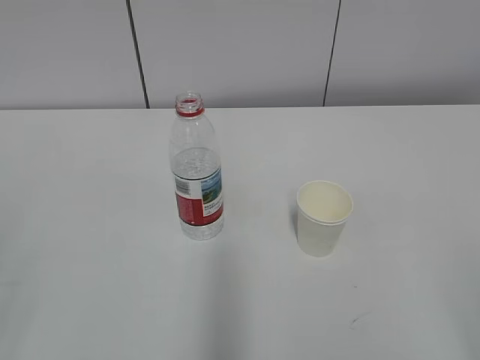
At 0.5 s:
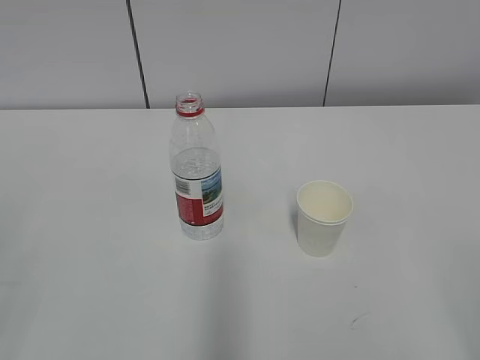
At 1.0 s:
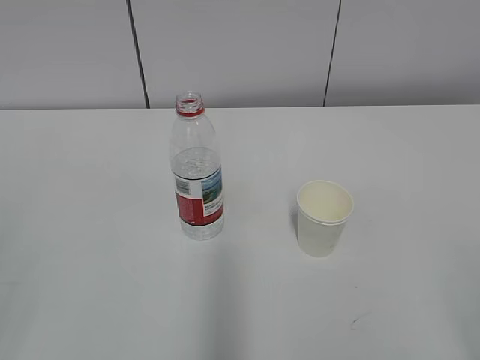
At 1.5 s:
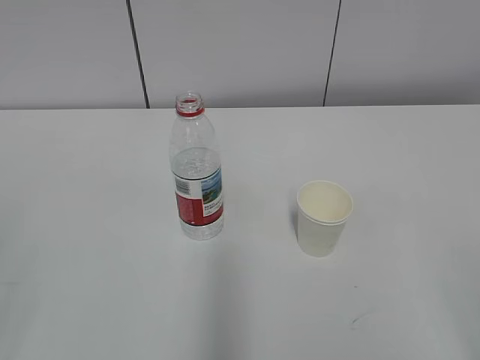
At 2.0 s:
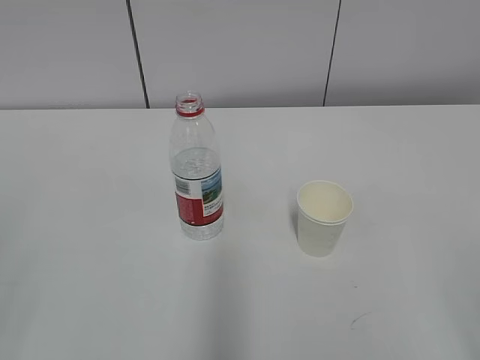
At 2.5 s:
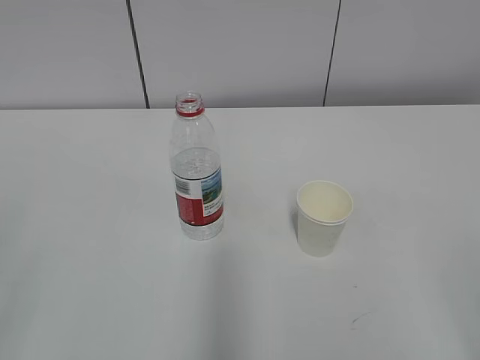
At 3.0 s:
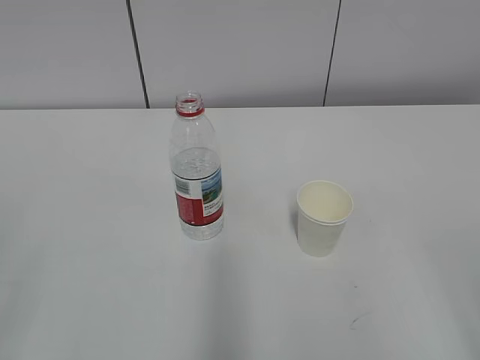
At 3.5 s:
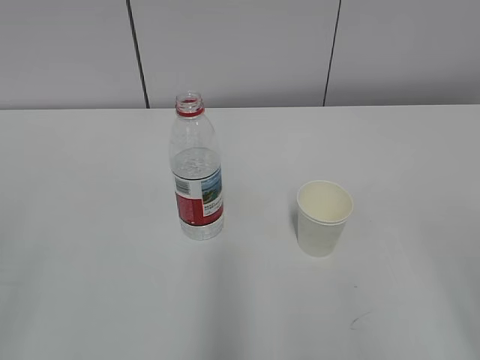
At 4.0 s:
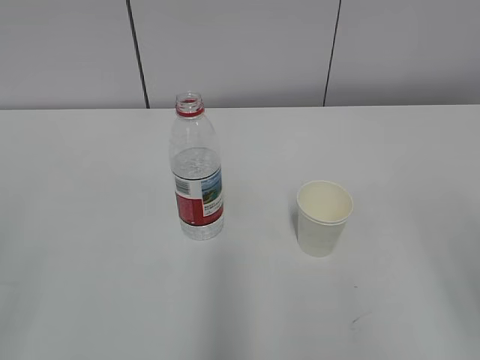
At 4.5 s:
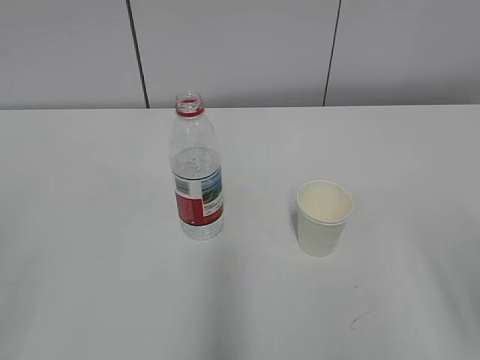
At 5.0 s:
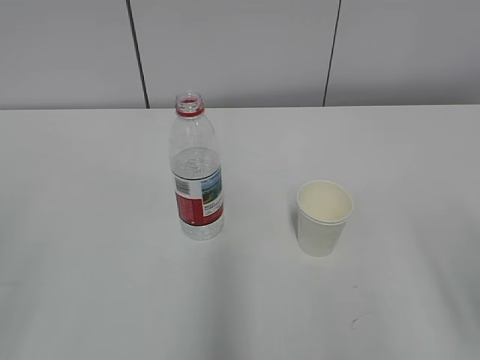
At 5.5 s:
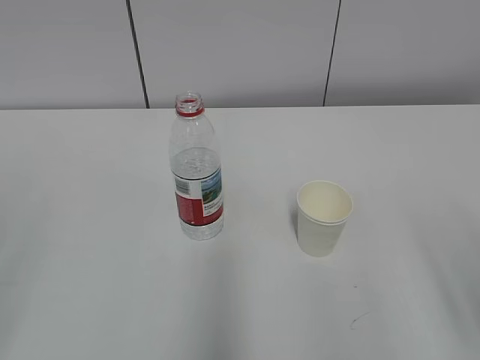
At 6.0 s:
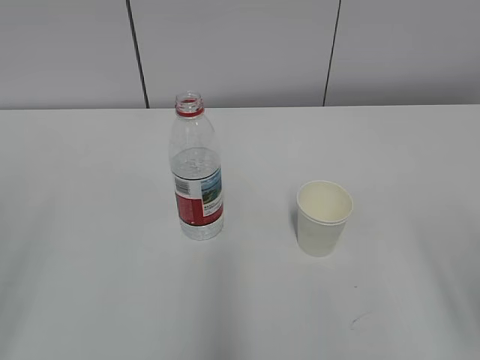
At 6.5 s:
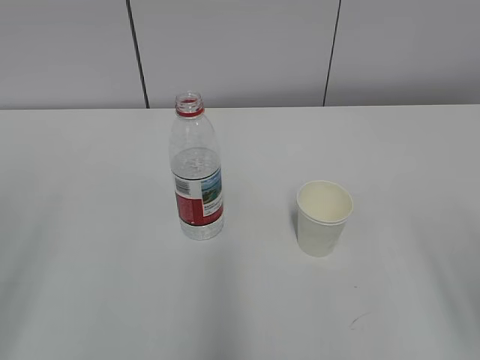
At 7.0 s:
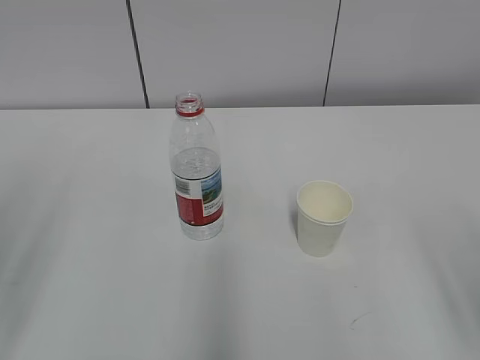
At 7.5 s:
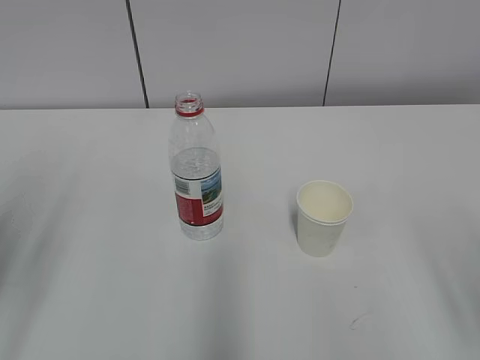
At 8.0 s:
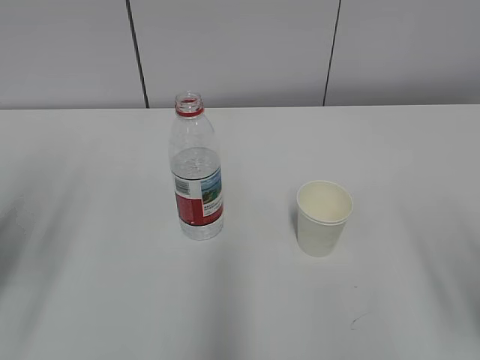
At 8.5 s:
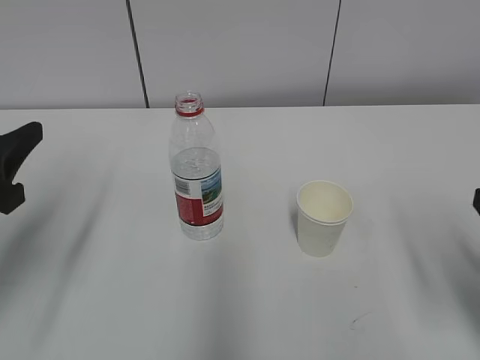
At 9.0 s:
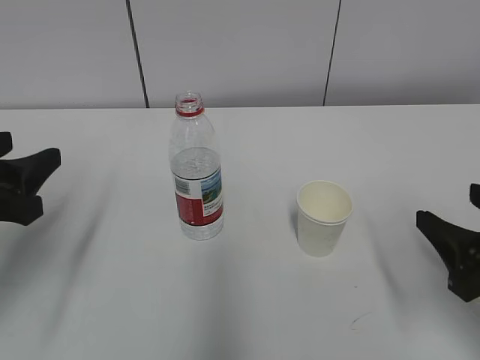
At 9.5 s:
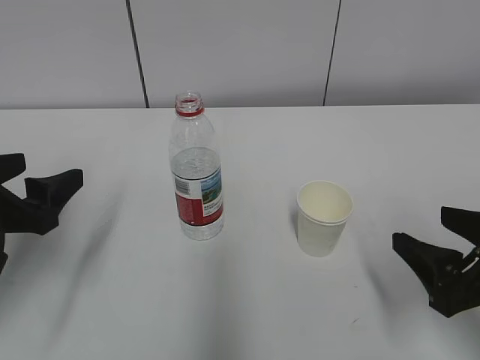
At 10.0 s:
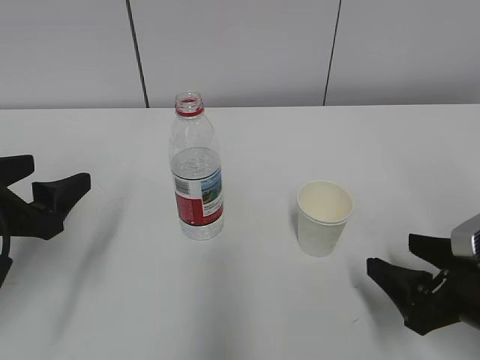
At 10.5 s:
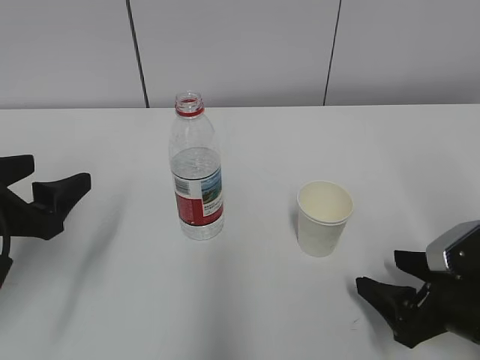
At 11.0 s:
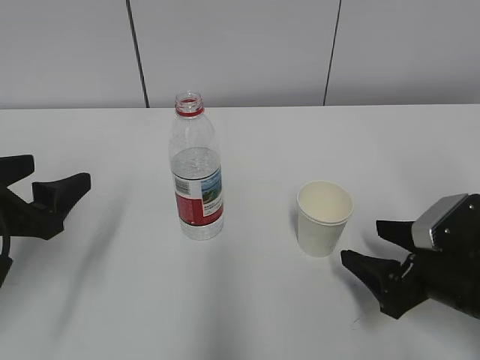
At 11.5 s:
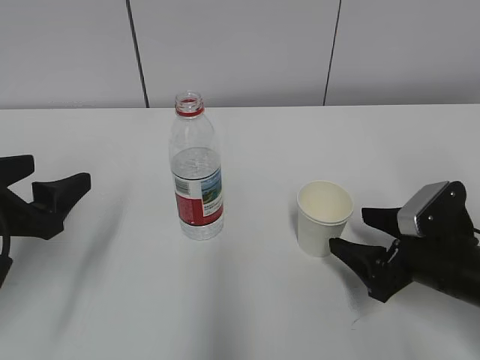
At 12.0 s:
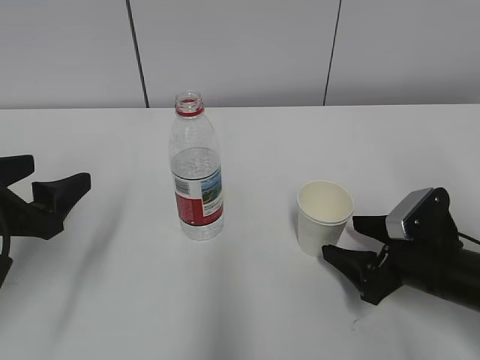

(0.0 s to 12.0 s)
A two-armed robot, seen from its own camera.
6.0 s - 8.0 s: The left gripper moves forward, about 15 cm.
8.0 s - 10.0 s: The left gripper heads downward, covering about 5 cm, and opens up. Meanwhile the right gripper goes approximately 15 cm downward and forward.
10.0 s - 12.0 s: The right gripper is displaced forward by approximately 5 cm.

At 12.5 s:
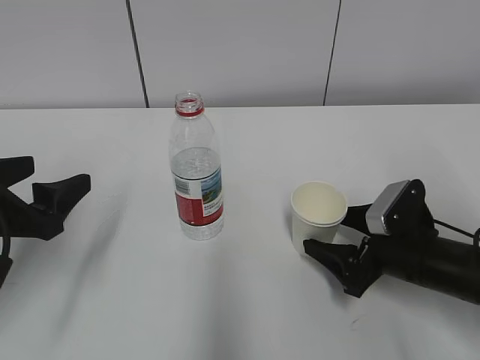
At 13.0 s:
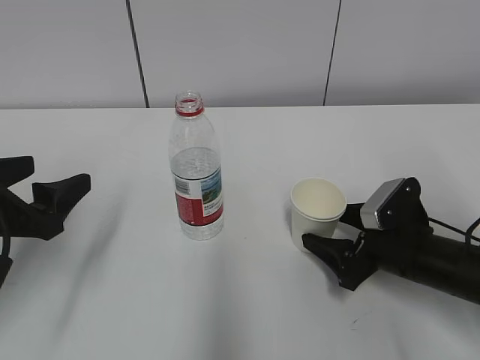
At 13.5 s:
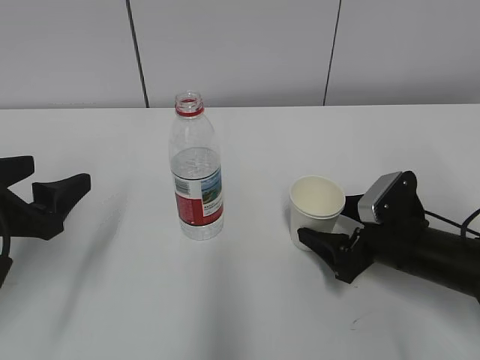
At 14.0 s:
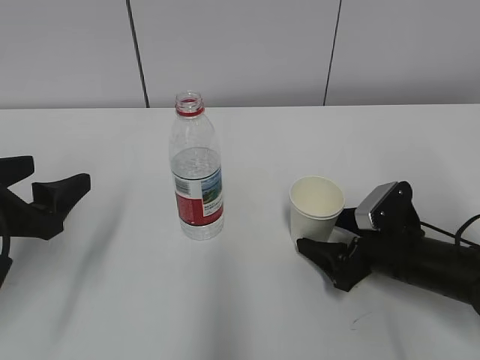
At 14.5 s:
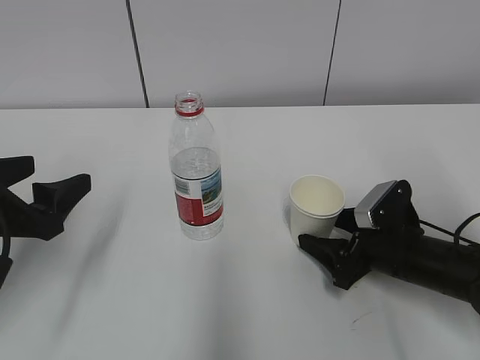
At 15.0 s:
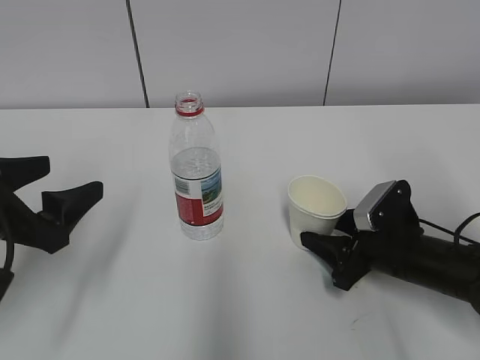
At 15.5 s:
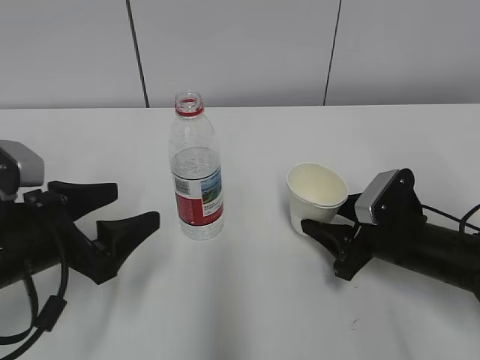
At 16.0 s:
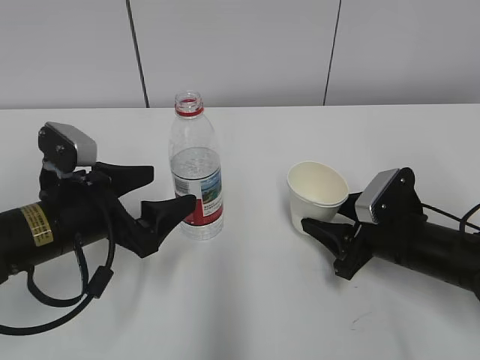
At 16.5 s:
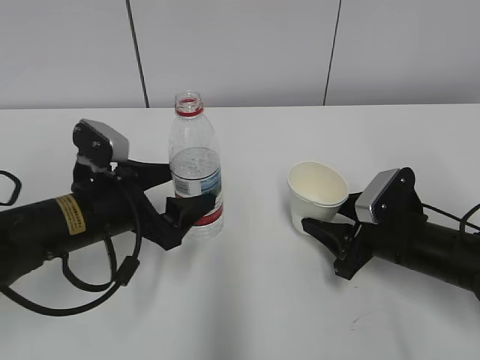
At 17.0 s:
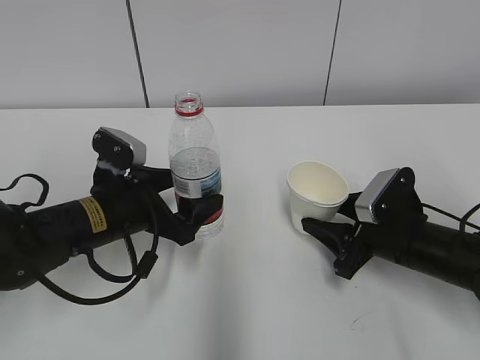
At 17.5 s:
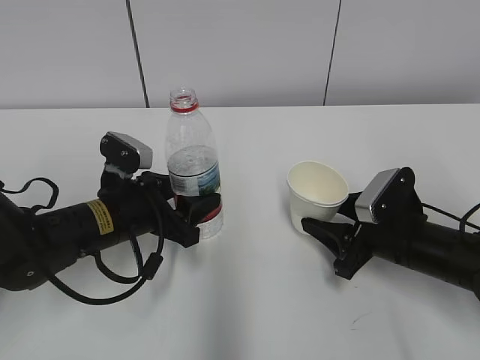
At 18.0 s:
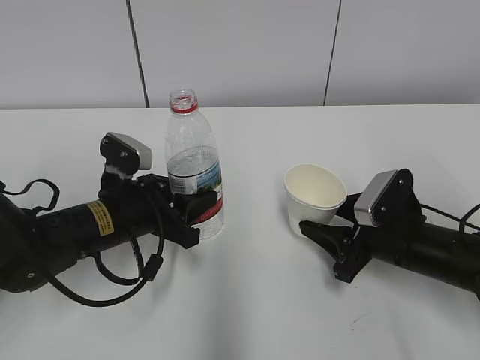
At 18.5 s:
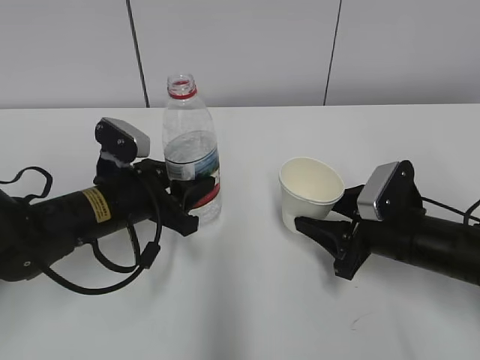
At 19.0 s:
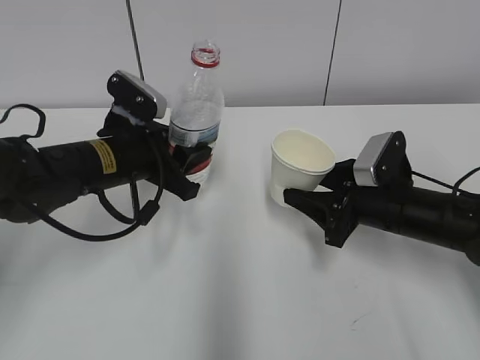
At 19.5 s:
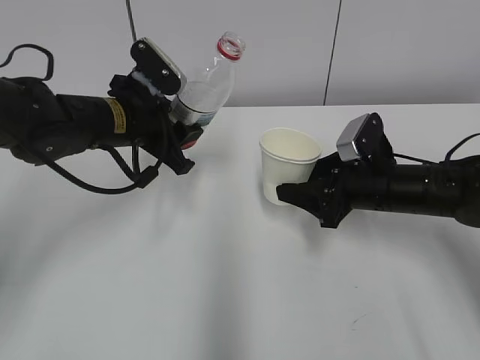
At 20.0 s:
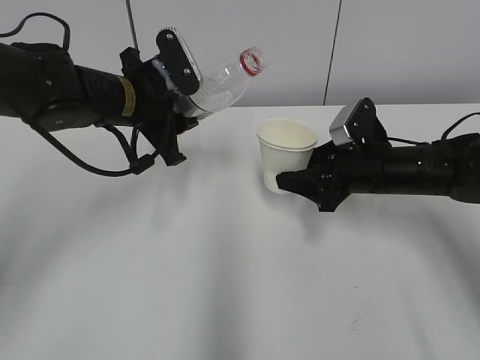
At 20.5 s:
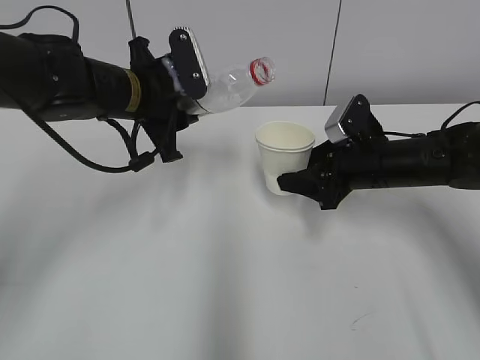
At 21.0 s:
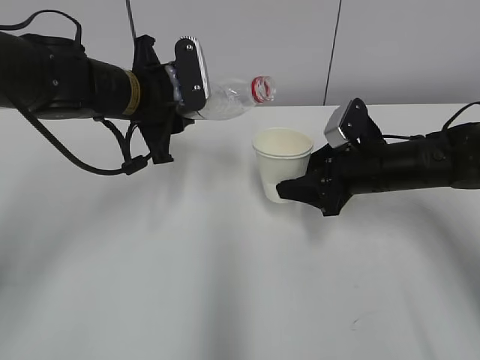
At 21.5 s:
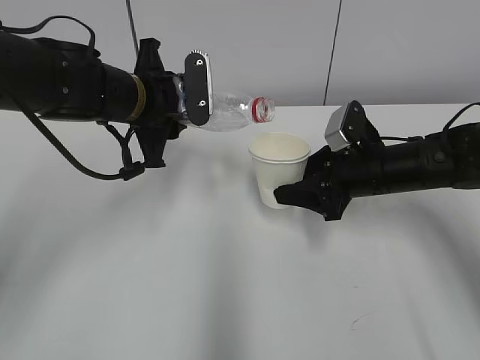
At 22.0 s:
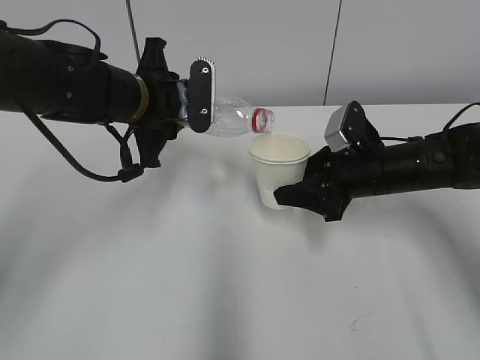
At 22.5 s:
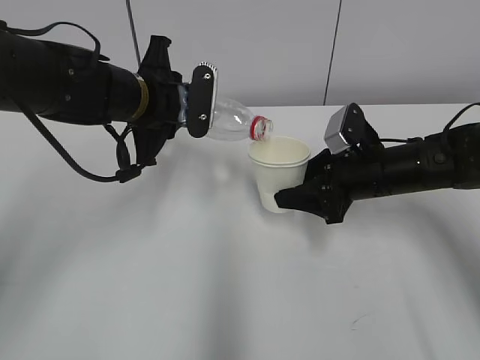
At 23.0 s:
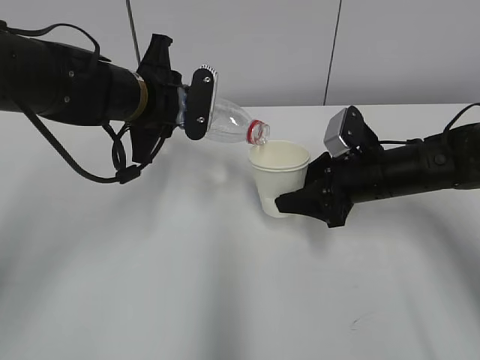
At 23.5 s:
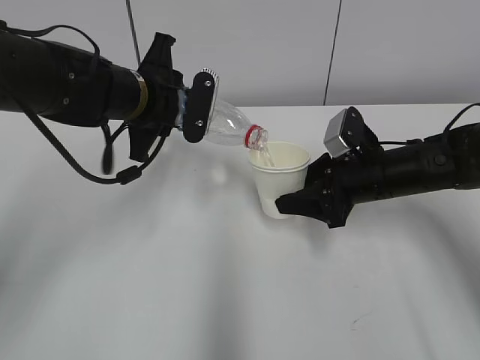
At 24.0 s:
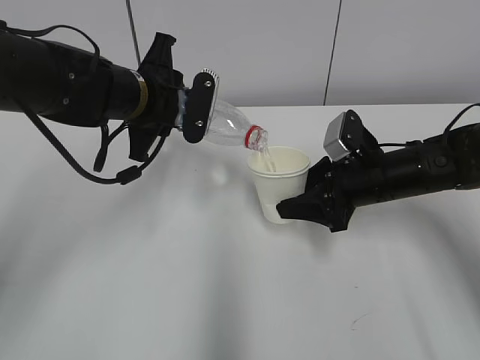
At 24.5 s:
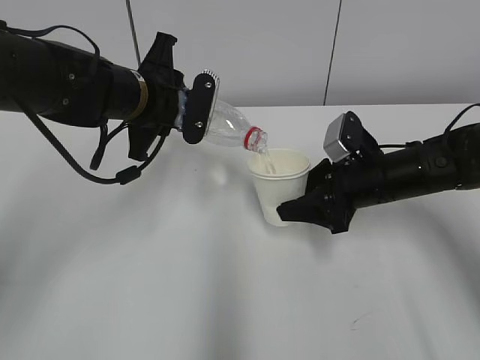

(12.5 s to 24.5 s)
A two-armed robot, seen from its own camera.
Step, 15.0 s - 18.5 s: Lift the paper cup with the right hand.
Step, 19.0 s - 23.5 s: Fill water with the right hand.
Step, 19.0 s - 23.5 s: Pour water with the left hand.
12.5 s - 14.5 s: The grippers make only small movements.
14.5 s - 16.5 s: The right gripper closes its fingers. Meanwhile the left gripper shifts approximately 10 cm to the right and forward.
16.5 s - 18.5 s: The left gripper closes.
18.5 s - 20.5 s: The right gripper travels forward by roughly 10 cm. Meanwhile the left gripper moves upward and forward, some 15 cm.
22.5 s - 24.5 s: The grippers make only small movements.

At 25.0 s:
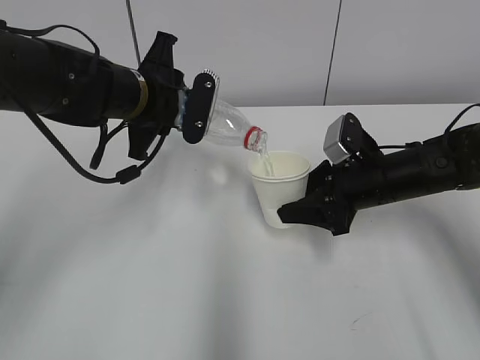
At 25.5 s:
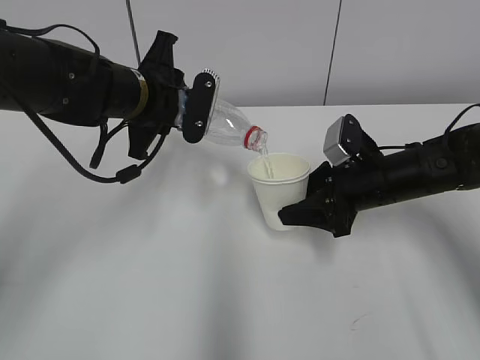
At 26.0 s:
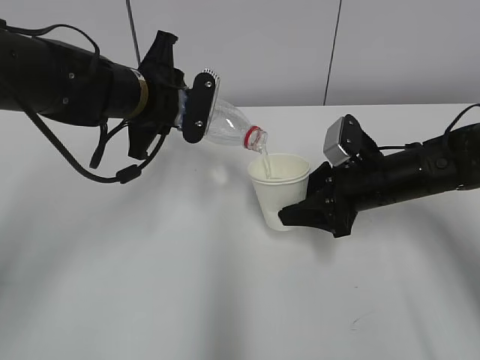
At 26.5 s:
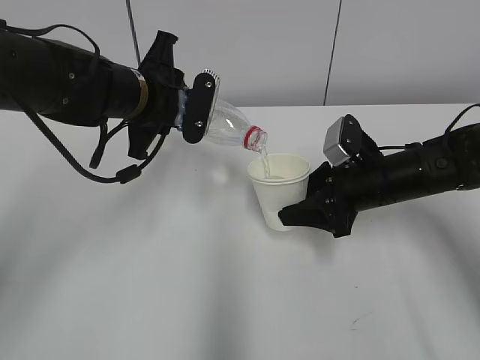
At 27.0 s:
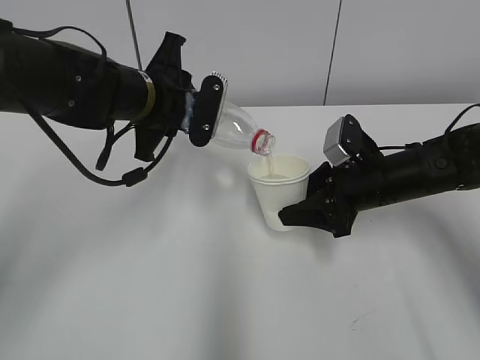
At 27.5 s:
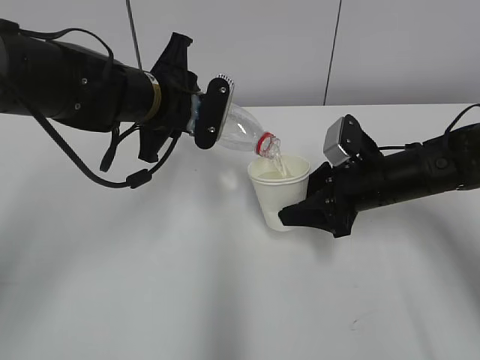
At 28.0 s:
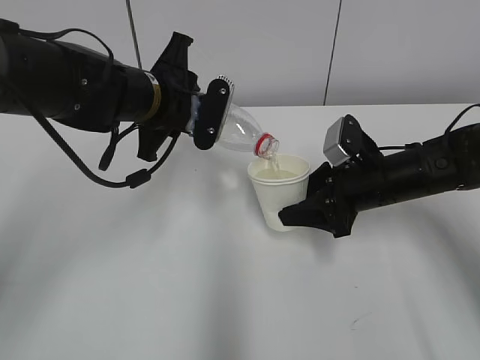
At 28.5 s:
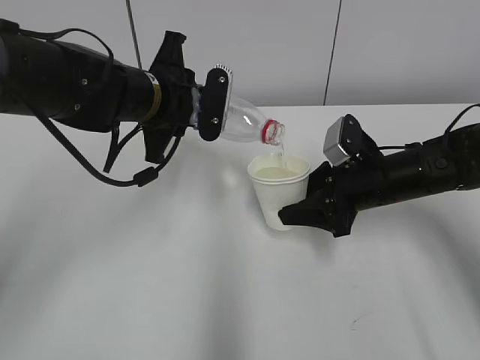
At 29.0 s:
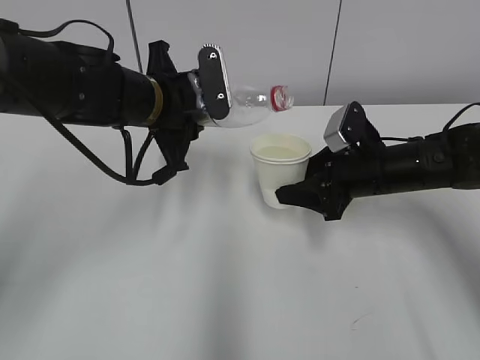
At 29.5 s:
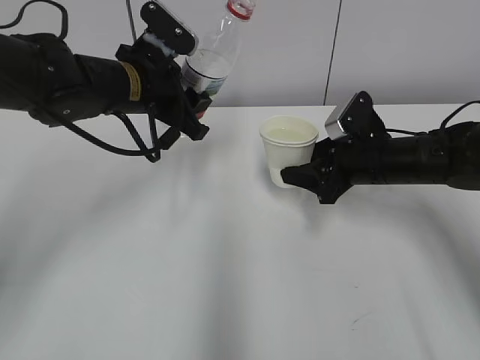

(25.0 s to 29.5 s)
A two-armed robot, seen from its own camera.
Step, 25.5 s - 27.0 s: Place the water bottle with the left hand.
25.0 s - 27.0 s: Both grippers stay about where they are.
